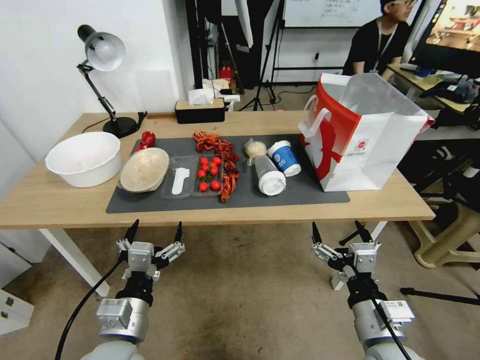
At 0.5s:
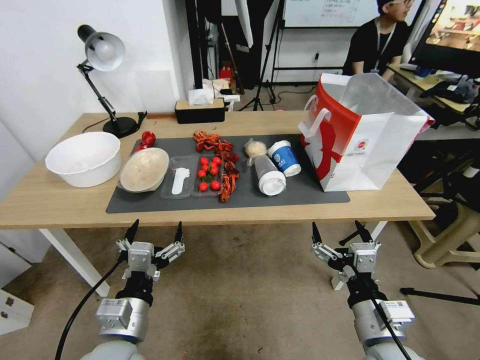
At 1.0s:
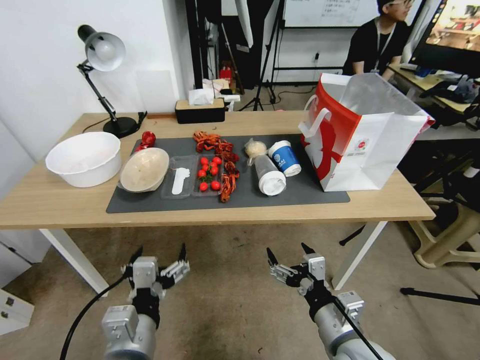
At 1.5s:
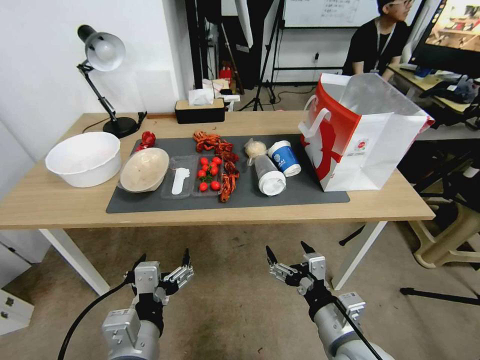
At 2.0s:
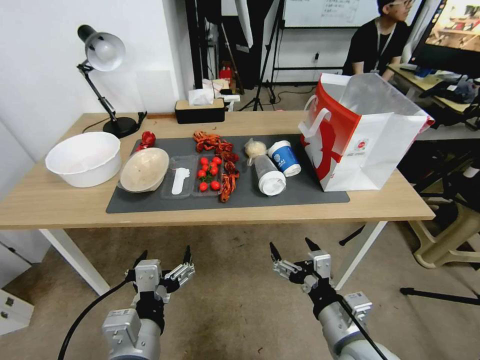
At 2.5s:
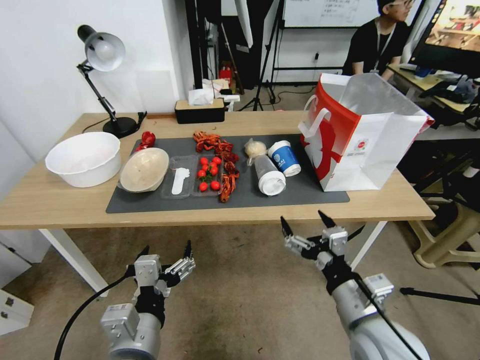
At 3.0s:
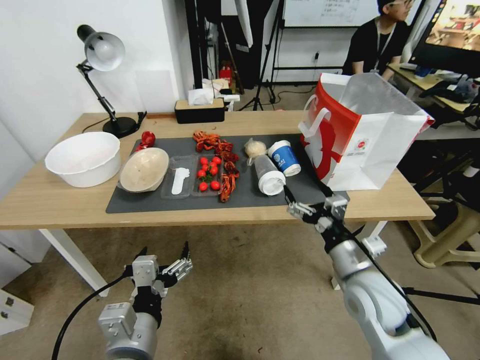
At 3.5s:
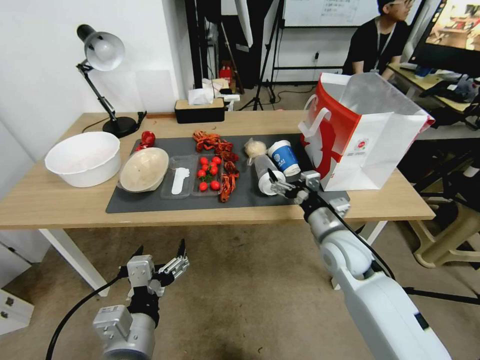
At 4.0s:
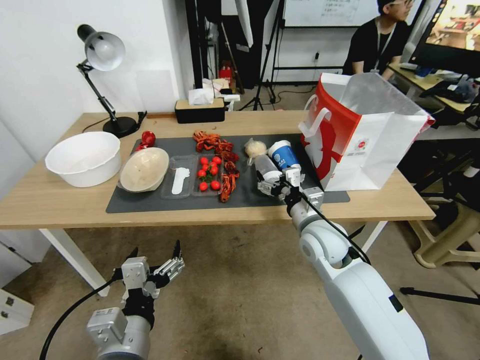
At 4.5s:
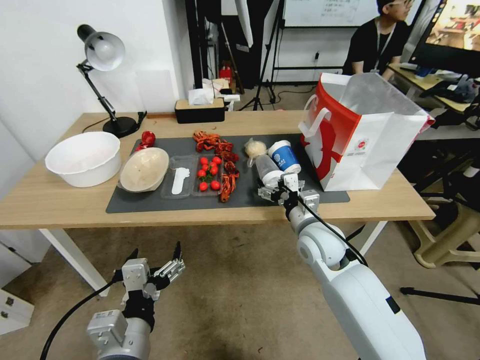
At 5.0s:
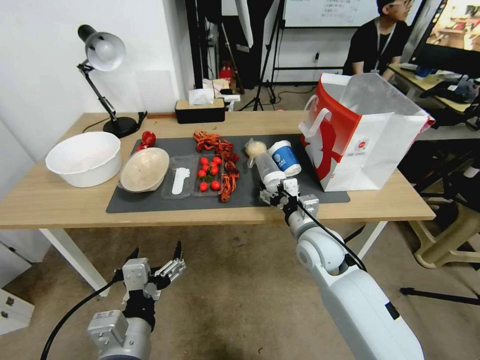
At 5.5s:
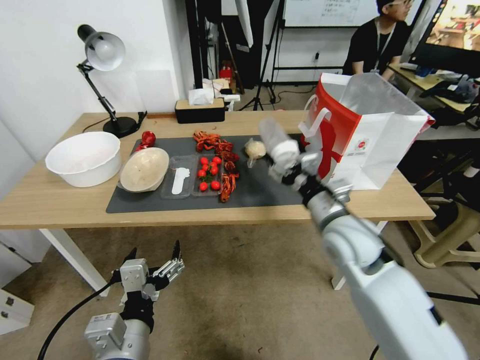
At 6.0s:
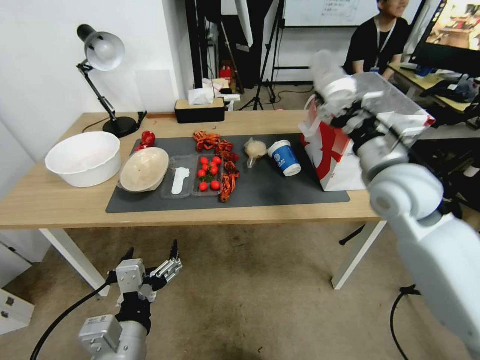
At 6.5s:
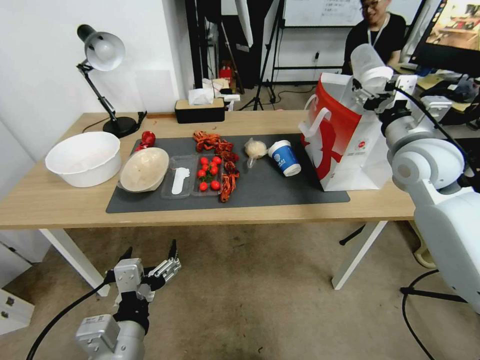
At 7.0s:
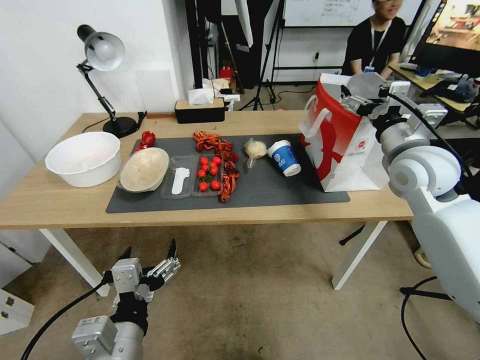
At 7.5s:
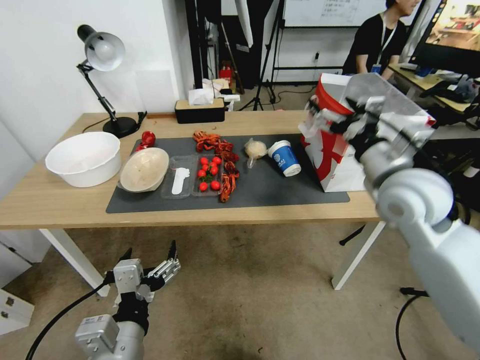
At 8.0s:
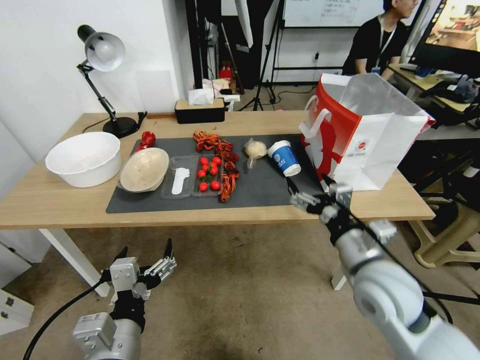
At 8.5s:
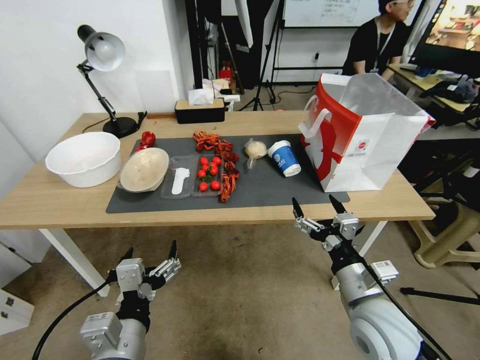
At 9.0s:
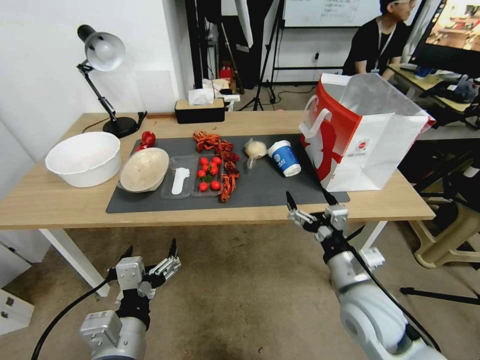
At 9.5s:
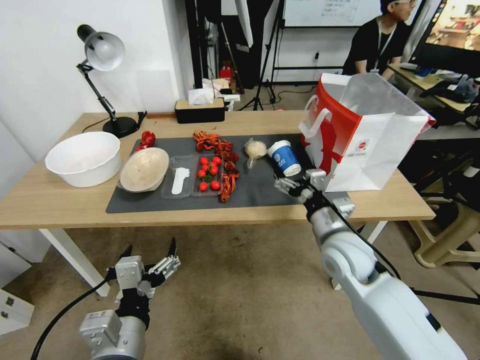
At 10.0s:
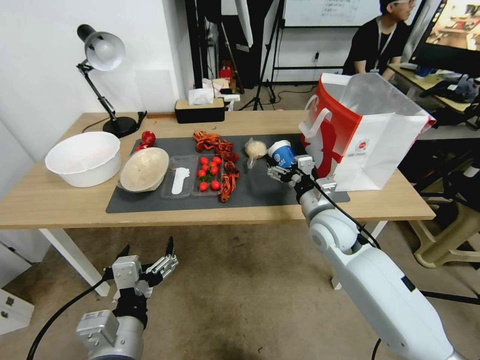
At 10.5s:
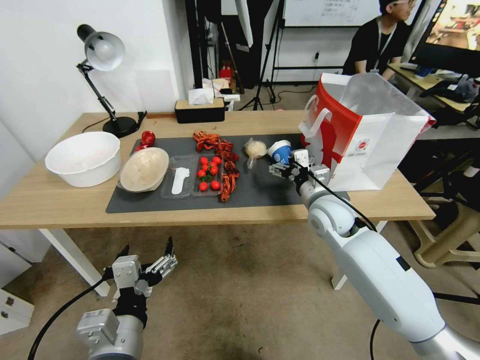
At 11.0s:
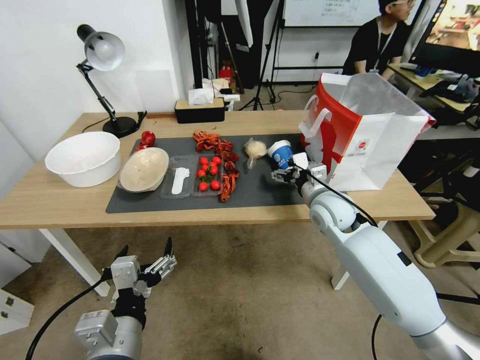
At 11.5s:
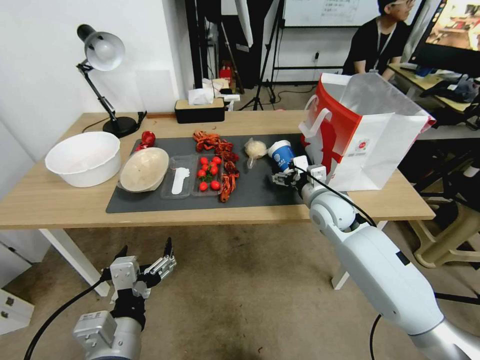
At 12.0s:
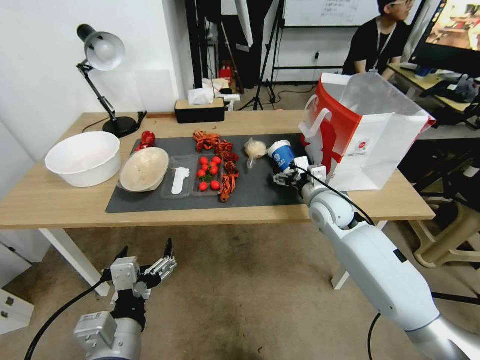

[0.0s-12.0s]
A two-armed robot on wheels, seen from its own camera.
2.0s to 4.0s: The right gripper heads forward, covering about 20 cm.
4.0s to 6.0s: The right gripper travels upward and to the right by some 20 cm.
6.0s to 8.0s: The right gripper moves downward and backward, some 15 cm.
8.0s to 10.0s: The right gripper heads forward, covering some 10 cm.
10.0s to 12.0s: The right gripper shifts roughly 5 cm forward.

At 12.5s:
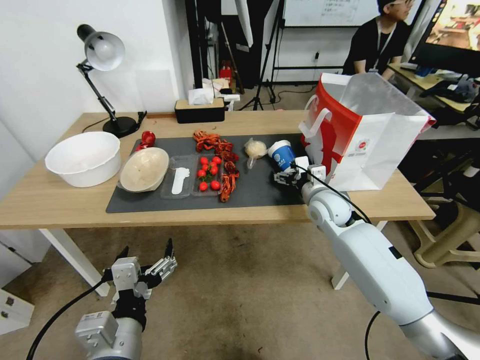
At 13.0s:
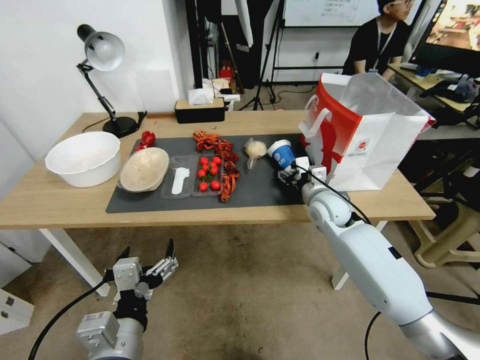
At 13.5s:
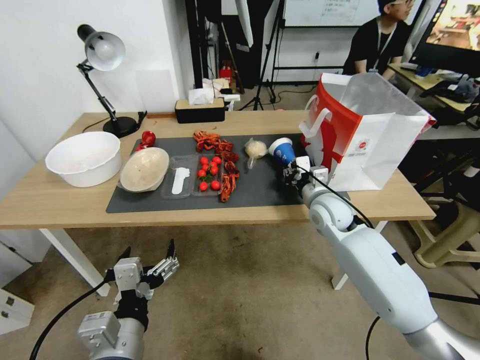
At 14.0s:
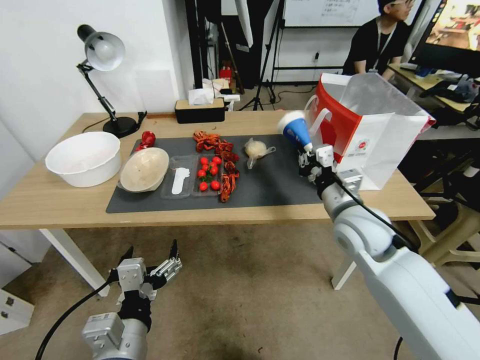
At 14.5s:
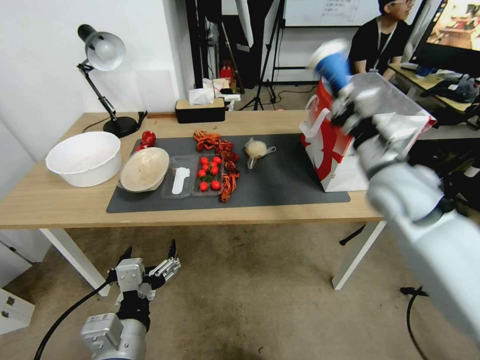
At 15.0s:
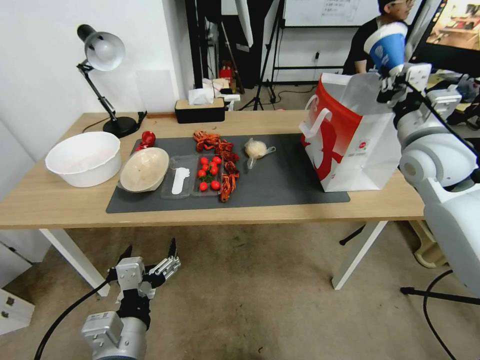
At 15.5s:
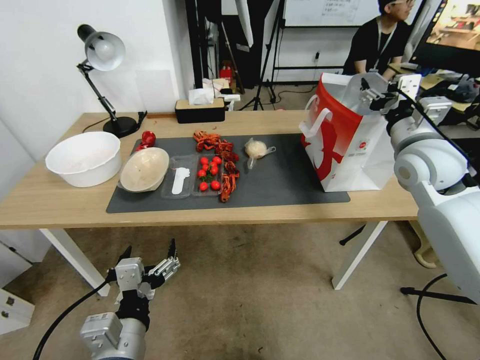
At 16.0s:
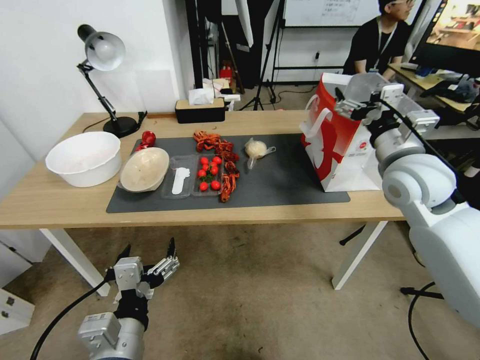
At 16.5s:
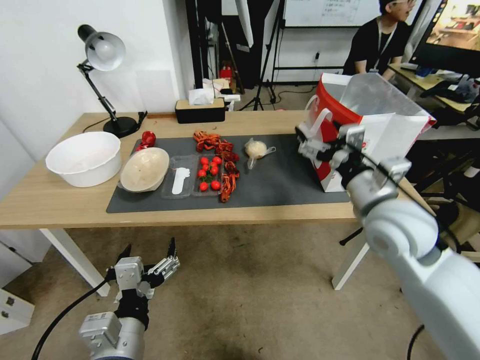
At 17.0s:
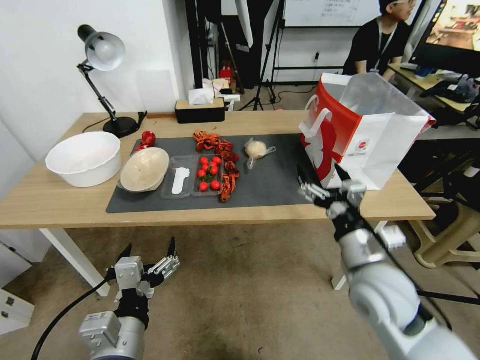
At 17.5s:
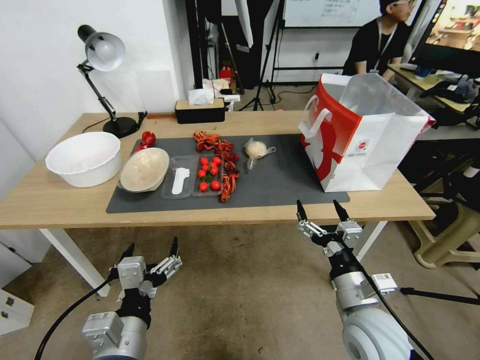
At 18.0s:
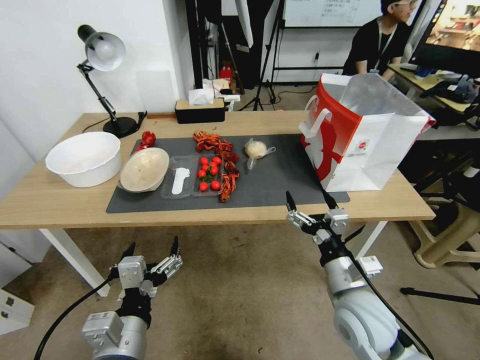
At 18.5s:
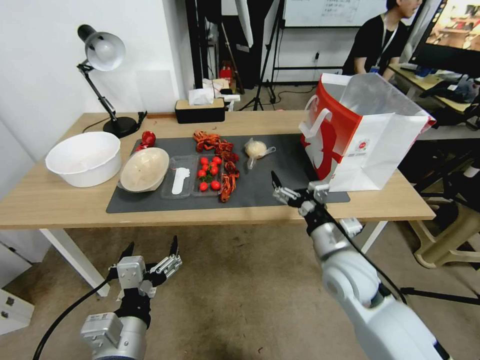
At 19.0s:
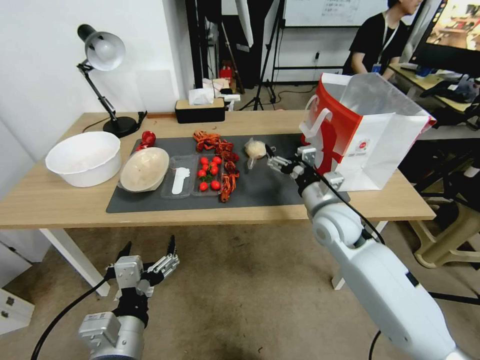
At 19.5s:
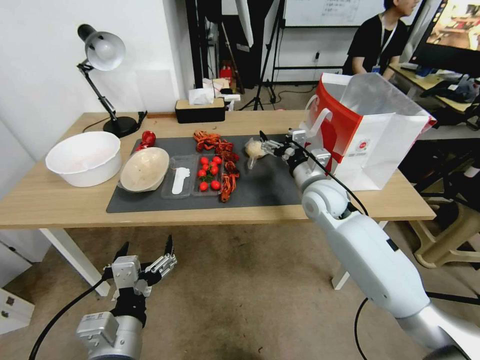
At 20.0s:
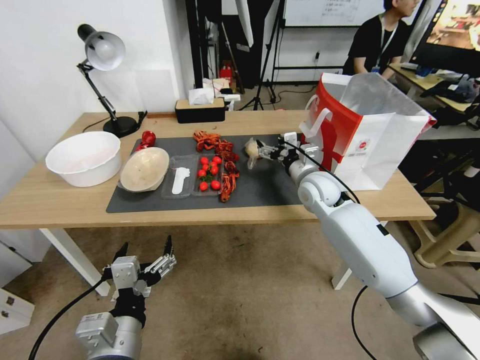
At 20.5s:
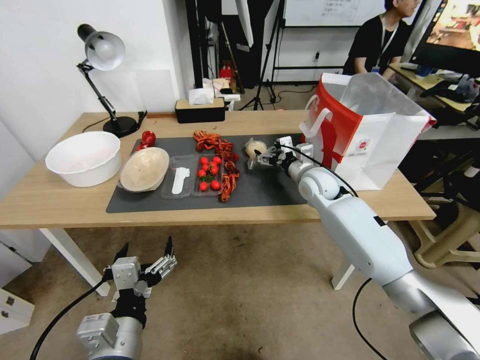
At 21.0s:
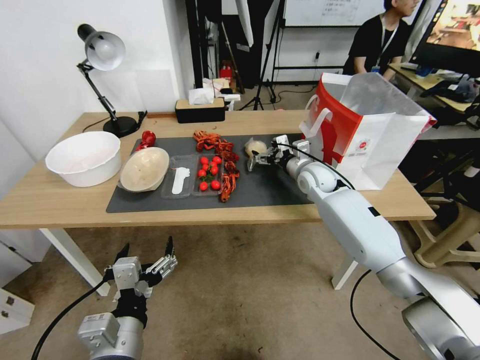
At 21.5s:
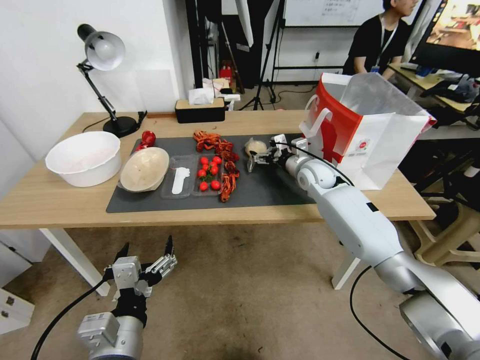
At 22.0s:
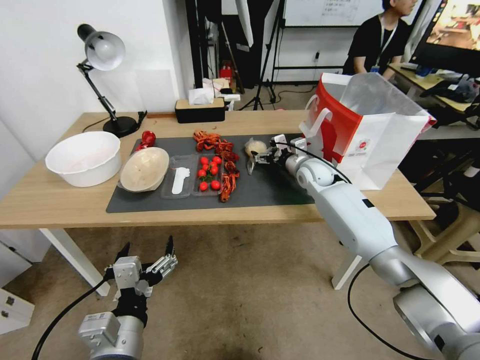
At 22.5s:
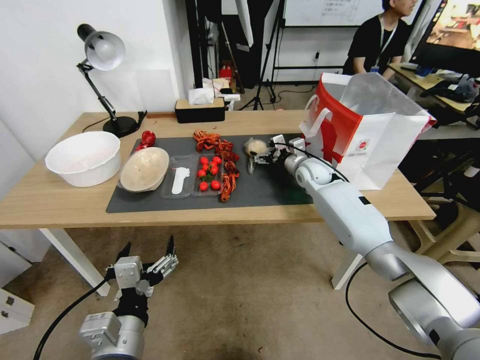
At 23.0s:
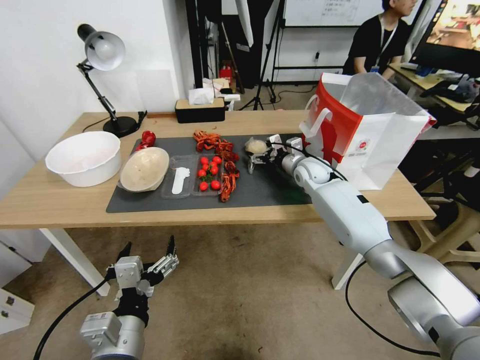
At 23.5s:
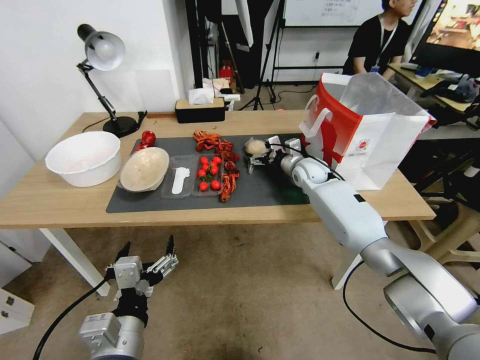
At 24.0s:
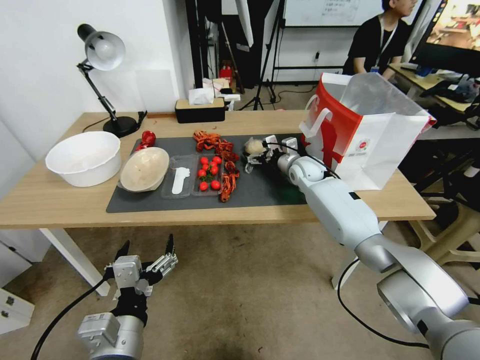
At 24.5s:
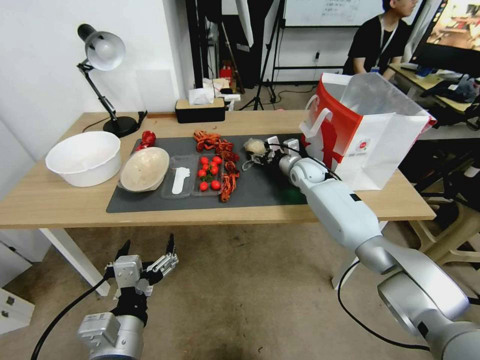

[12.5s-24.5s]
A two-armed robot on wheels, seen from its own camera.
12.5s to 14.5s: The right gripper travels upward and backward by some 20 cm, and closes.
14.5s to 16.5s: The right gripper travels to the right and back again, approximately 10 cm each way, and opens its fingers.
16.5s to 18.5s: The right gripper travels downward by roughly 15 cm.
18.5s to 20.5s: The right gripper heads forward, covering about 20 cm.
20.5s to 22.5s: The right gripper heads forward, covering about 5 cm.
22.5s to 24.5s: The right gripper closes its fingers.

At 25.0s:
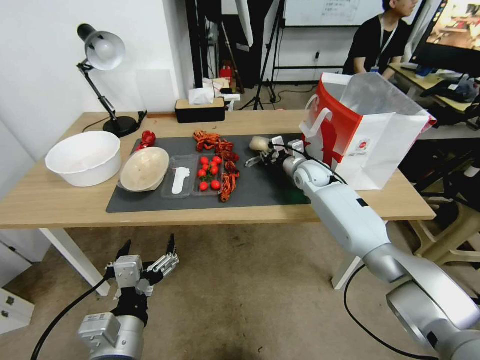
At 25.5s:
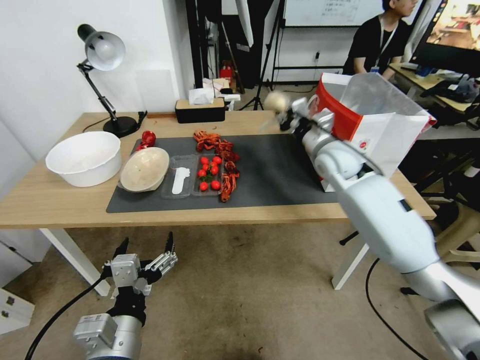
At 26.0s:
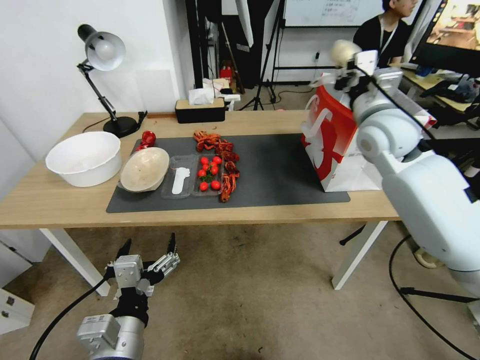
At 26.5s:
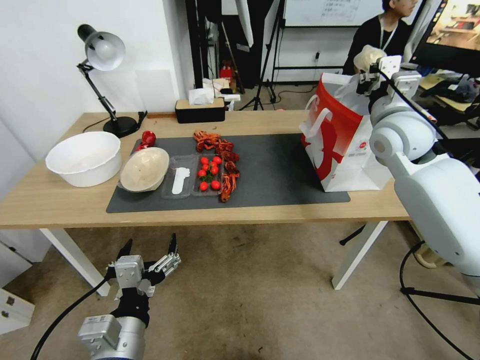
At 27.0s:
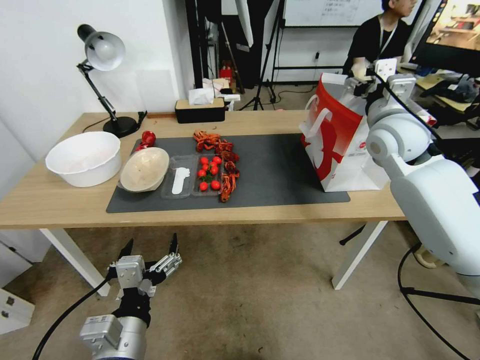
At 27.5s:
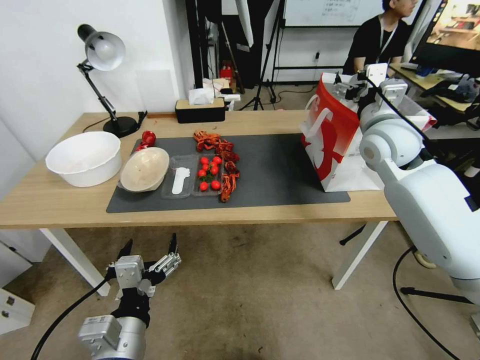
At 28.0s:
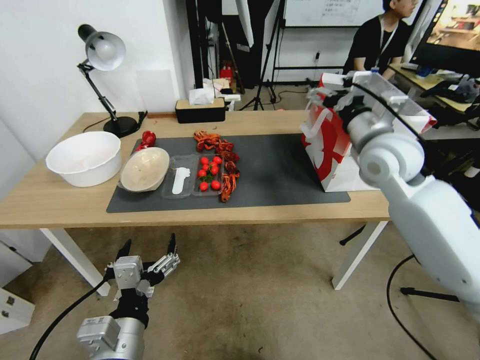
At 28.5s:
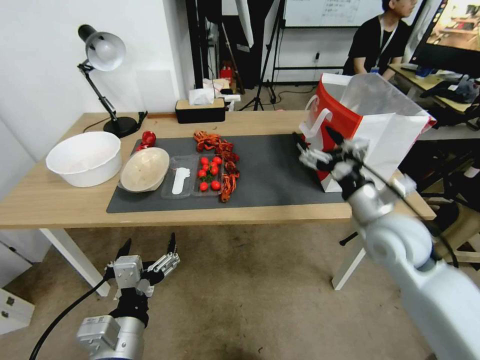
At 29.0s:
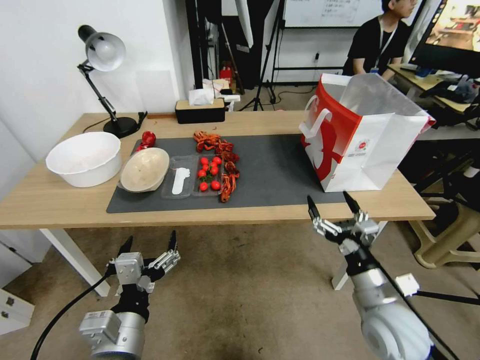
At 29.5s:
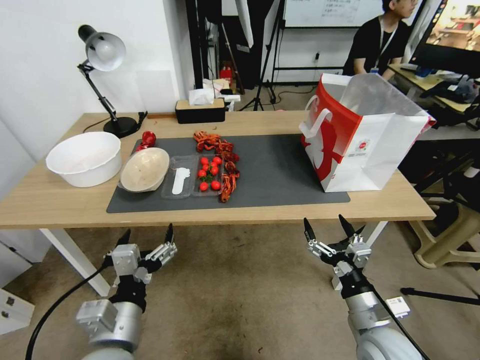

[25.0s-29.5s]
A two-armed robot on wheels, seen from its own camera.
25.0s to 27.0s: The right gripper goes some 25 cm upward and backward, and opens.
27.0s to 29.5s: The right gripper heads backward and downward, covering approximately 40 cm.
